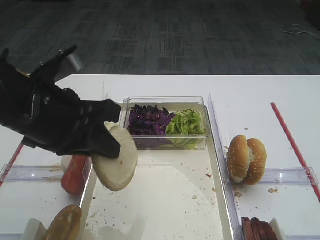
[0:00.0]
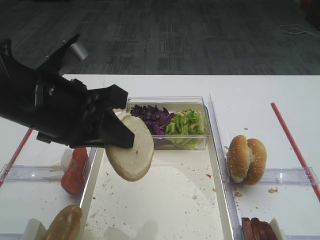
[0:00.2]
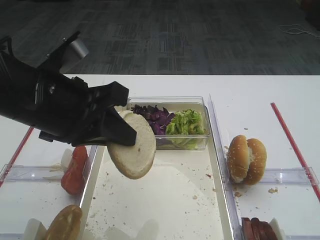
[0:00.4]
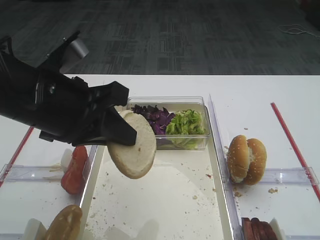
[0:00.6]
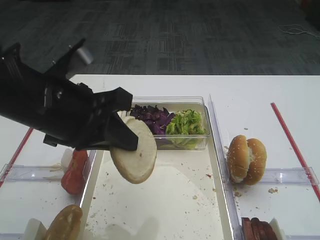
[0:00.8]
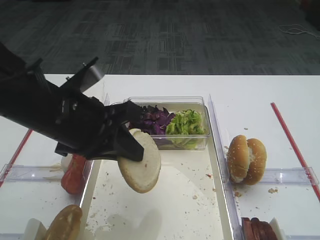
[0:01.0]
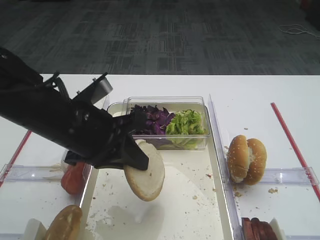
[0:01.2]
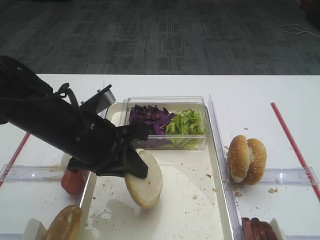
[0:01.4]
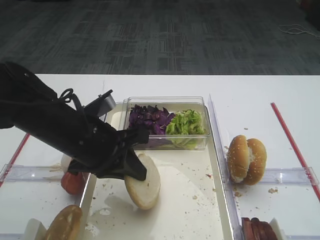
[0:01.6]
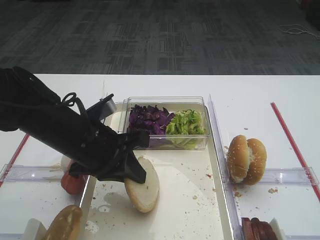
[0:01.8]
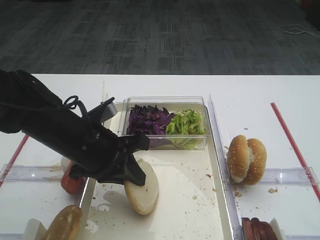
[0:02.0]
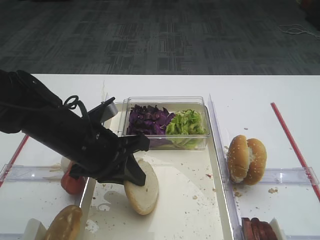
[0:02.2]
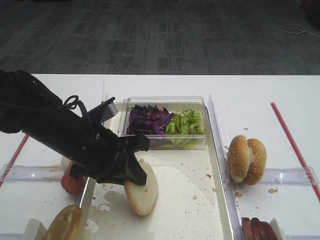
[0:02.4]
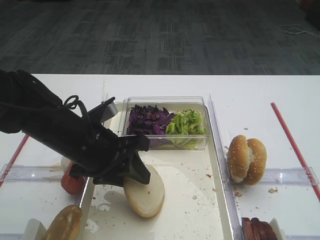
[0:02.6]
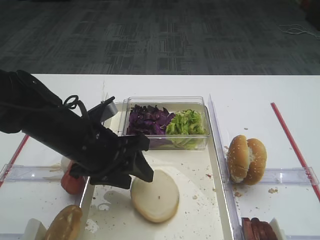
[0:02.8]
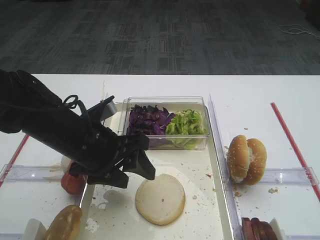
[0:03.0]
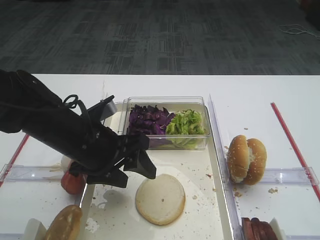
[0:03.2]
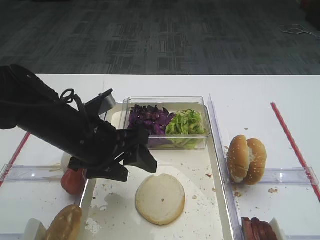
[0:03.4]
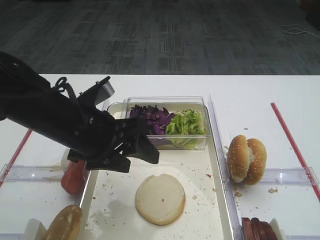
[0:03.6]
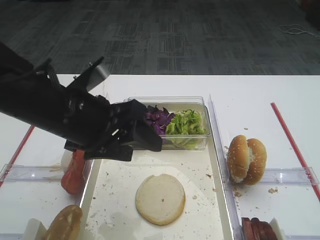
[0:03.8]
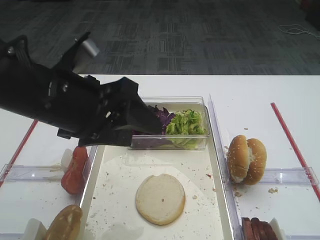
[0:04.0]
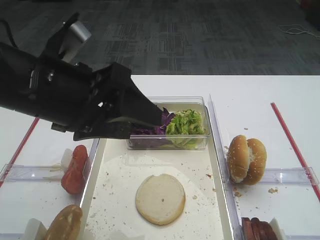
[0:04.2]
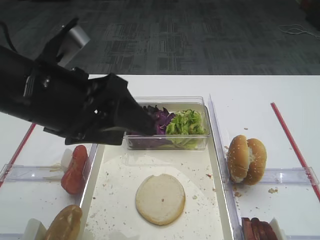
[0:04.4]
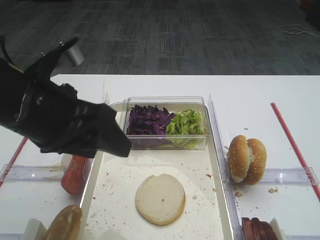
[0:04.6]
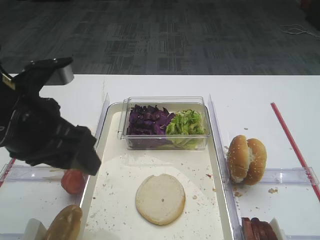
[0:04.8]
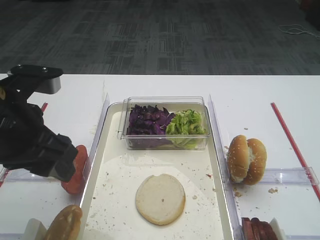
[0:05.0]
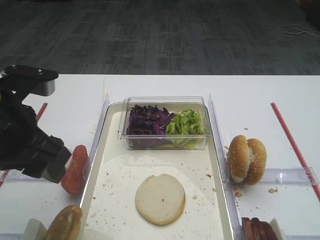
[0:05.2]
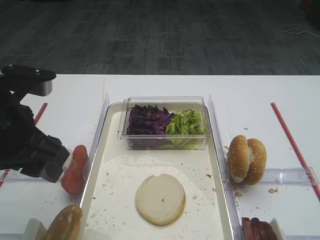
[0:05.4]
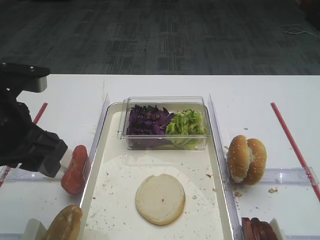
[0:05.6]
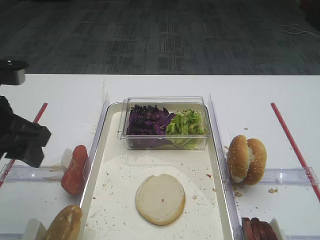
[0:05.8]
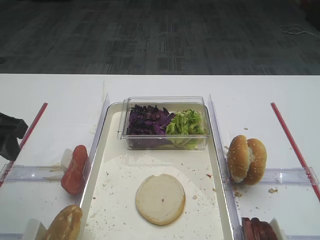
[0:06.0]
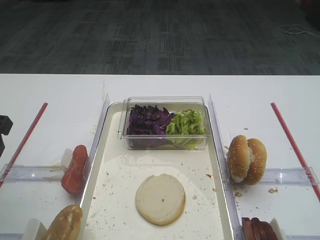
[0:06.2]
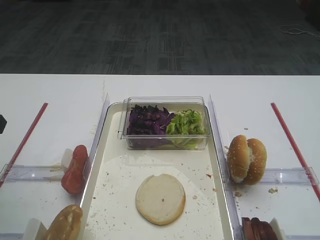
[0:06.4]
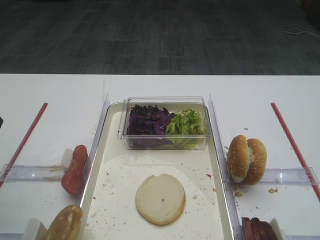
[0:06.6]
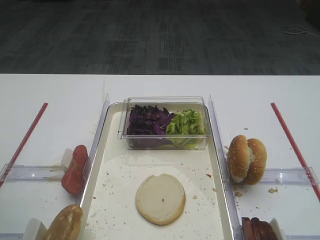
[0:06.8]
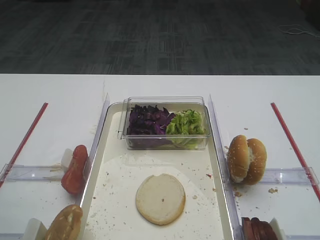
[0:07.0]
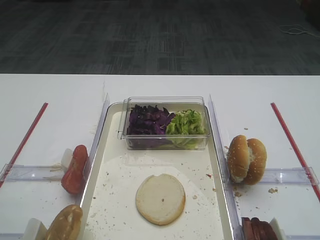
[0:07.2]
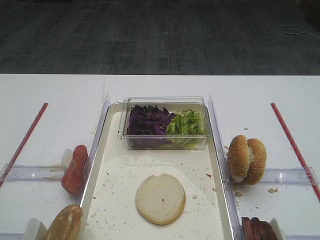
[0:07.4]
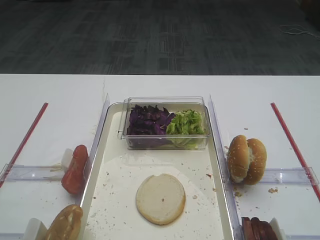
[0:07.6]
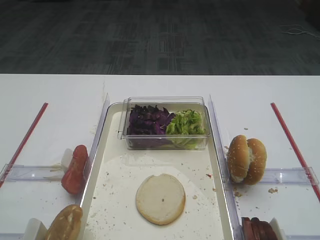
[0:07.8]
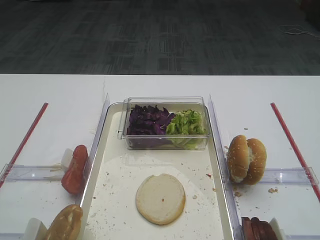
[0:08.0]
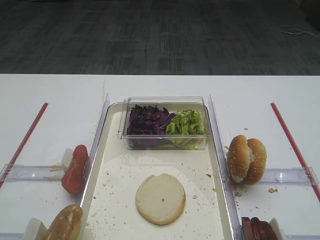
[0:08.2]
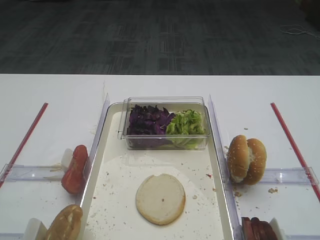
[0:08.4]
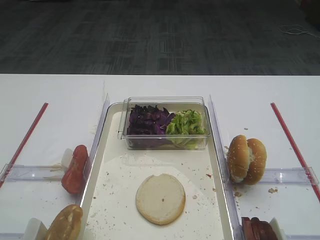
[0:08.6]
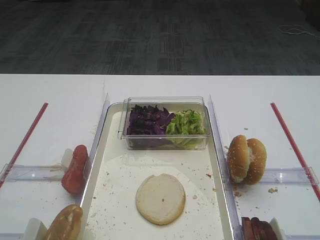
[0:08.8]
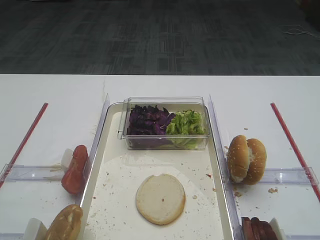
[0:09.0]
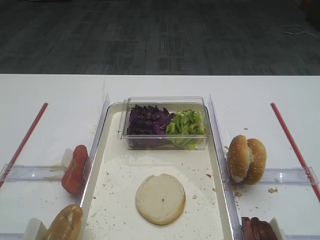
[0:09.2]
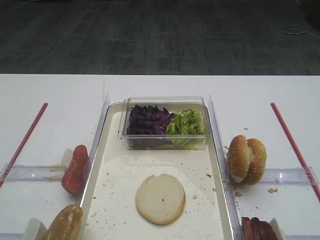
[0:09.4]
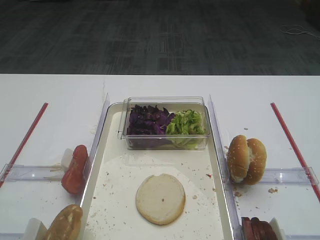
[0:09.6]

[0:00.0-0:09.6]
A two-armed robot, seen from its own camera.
Step, 0:00.0 to 0:06.2: Place the bread slice on the tray with the left gripper.
0:00.0 to 0:01.6: The left gripper travels downward by about 10 cm.
0:01.6 to 0:03.2: The left gripper opens.
0:03.2 to 0:04.8: The left gripper goes roughly 10 cm upward, to the left and backward.
0:04.8 to 0:06.4: The left gripper is displaced to the left by about 10 cm.
0:06.4 to 0:08.0: The left gripper goes approximately 20 cm backward.

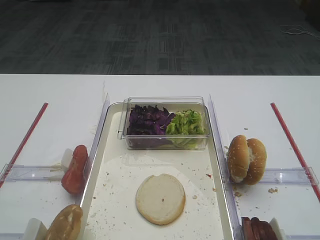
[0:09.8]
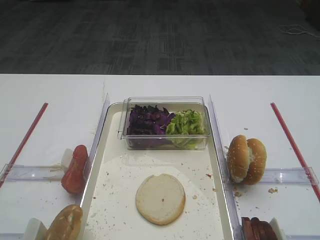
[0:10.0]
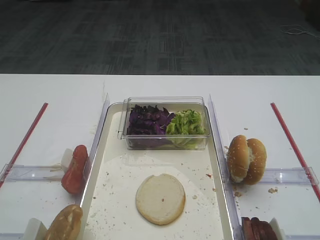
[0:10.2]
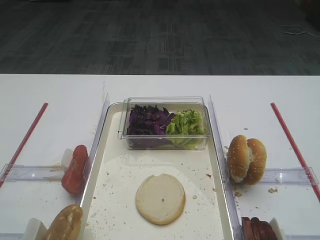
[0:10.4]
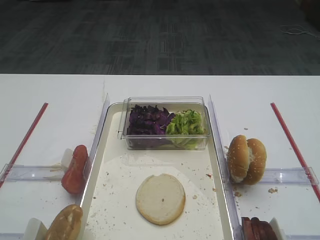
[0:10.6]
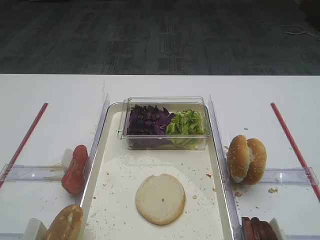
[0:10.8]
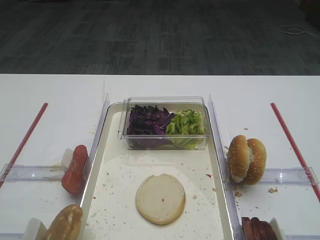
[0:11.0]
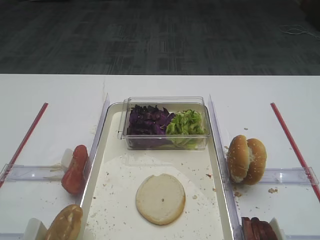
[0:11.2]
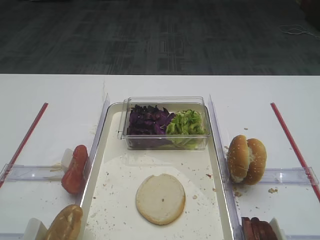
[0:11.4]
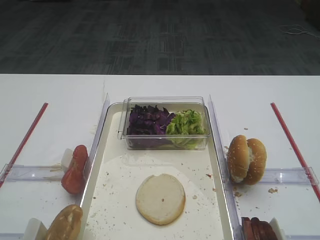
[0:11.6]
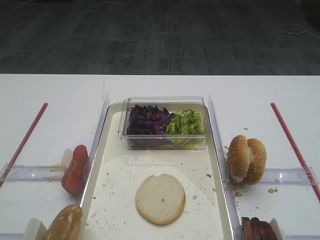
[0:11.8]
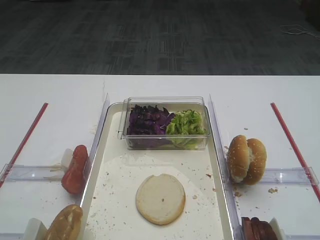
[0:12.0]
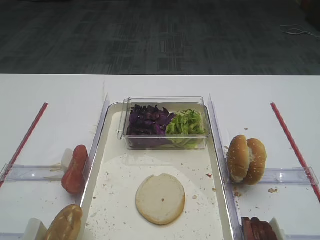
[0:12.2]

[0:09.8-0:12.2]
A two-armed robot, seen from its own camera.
0:09.8 to 0:12.2: The two grippers keep their place.

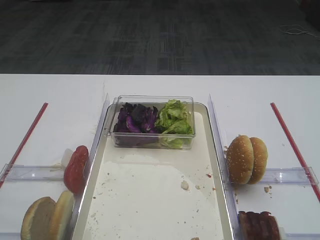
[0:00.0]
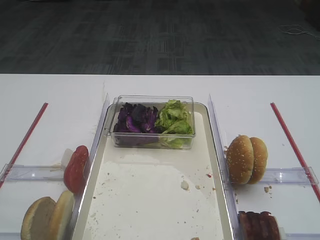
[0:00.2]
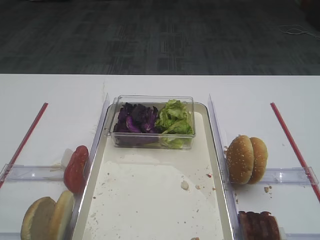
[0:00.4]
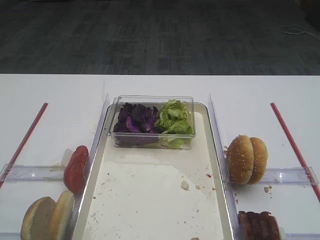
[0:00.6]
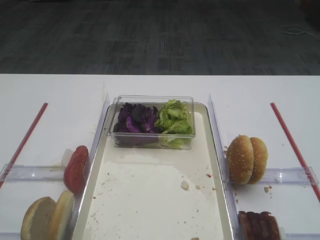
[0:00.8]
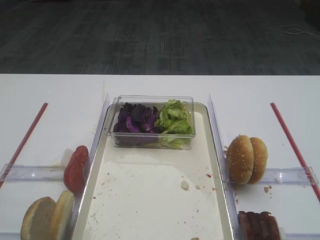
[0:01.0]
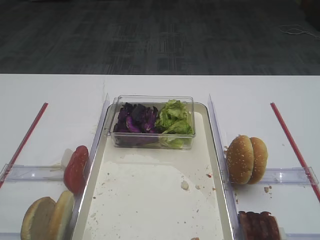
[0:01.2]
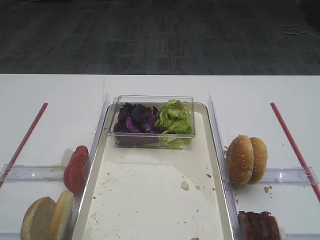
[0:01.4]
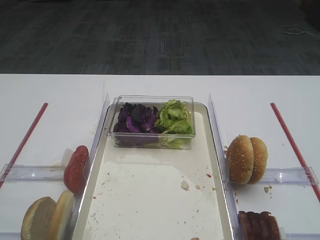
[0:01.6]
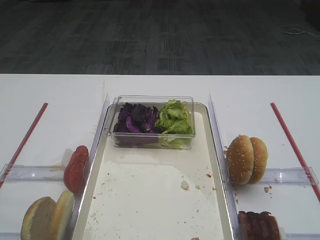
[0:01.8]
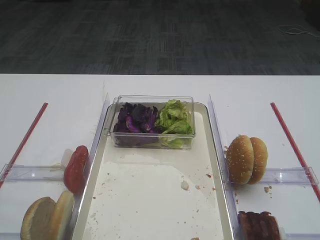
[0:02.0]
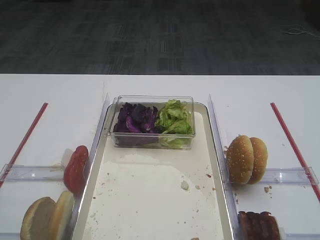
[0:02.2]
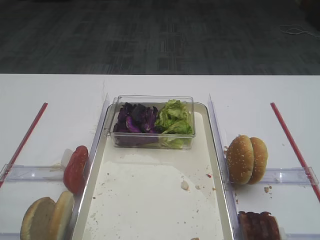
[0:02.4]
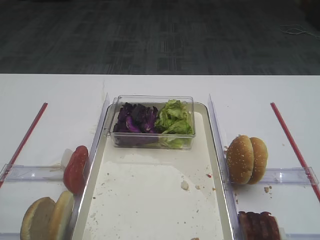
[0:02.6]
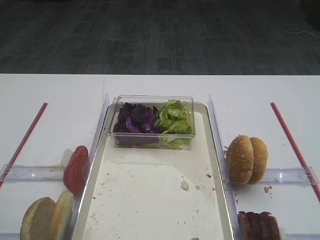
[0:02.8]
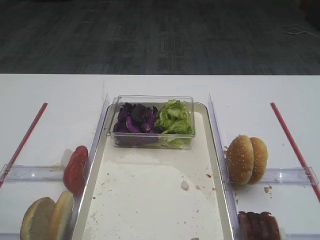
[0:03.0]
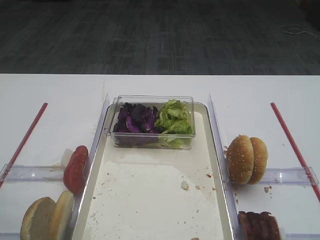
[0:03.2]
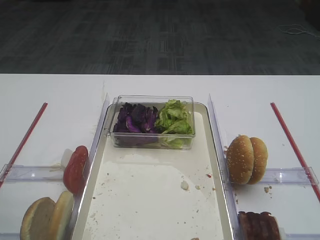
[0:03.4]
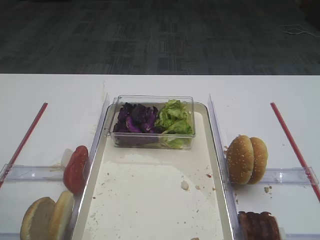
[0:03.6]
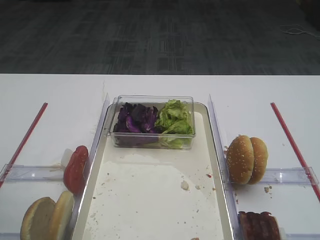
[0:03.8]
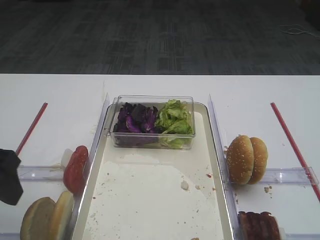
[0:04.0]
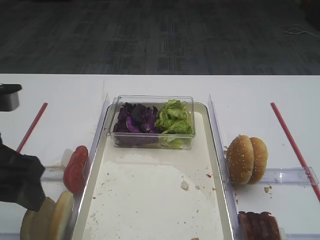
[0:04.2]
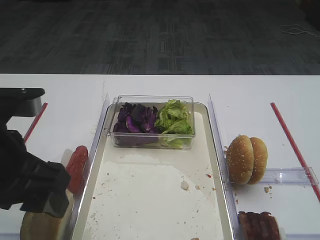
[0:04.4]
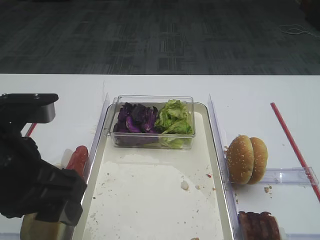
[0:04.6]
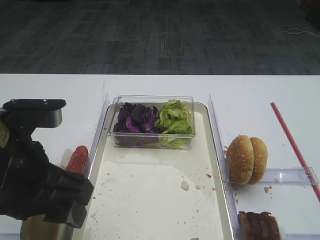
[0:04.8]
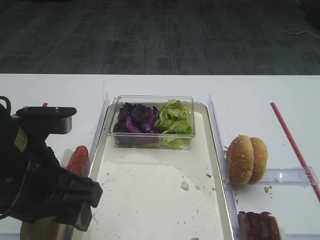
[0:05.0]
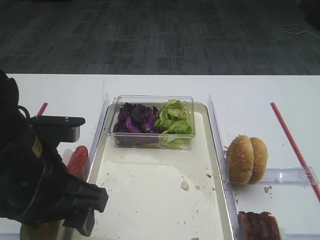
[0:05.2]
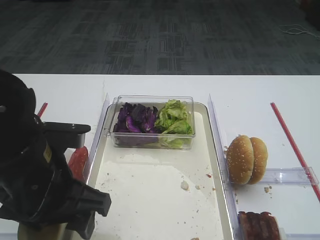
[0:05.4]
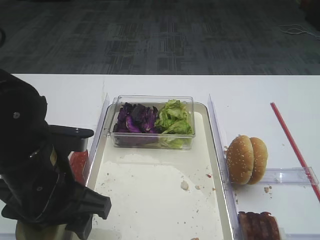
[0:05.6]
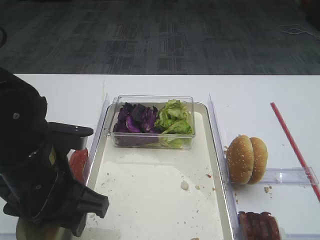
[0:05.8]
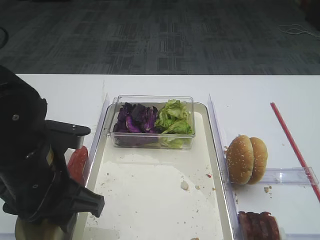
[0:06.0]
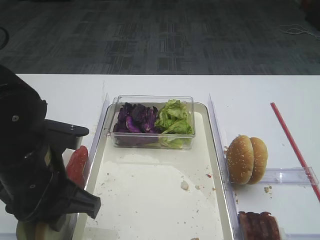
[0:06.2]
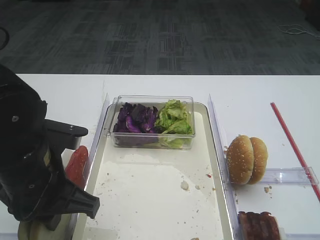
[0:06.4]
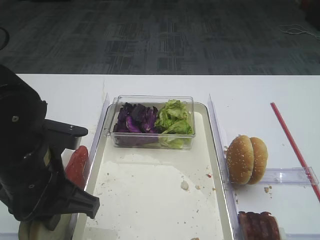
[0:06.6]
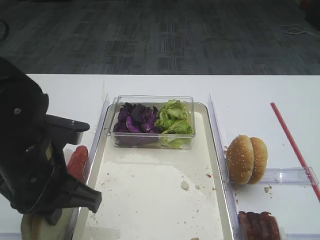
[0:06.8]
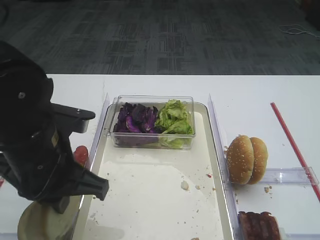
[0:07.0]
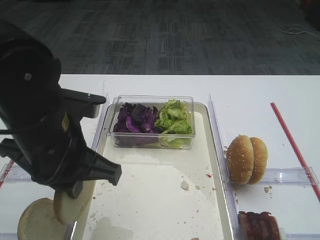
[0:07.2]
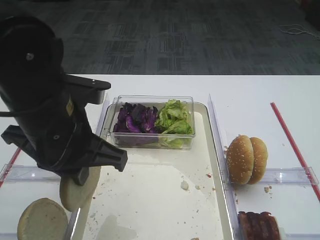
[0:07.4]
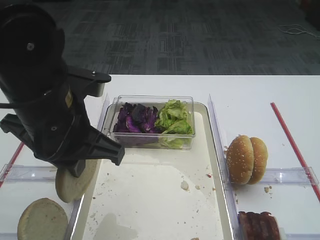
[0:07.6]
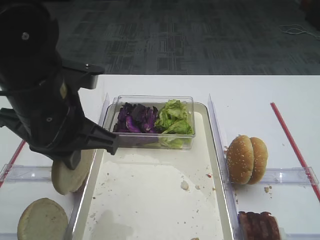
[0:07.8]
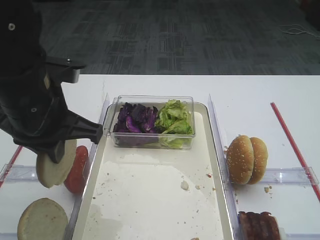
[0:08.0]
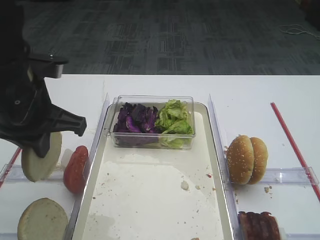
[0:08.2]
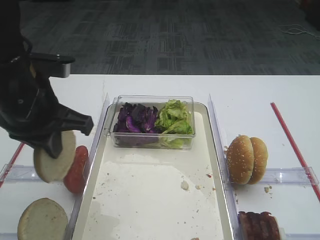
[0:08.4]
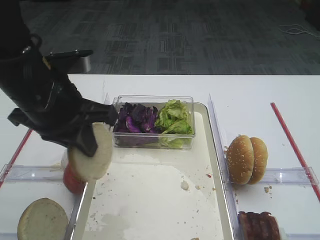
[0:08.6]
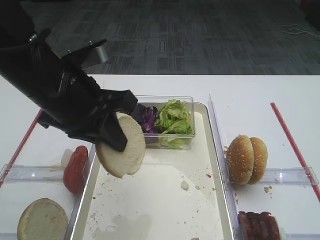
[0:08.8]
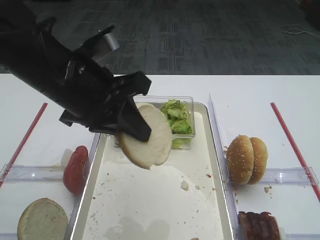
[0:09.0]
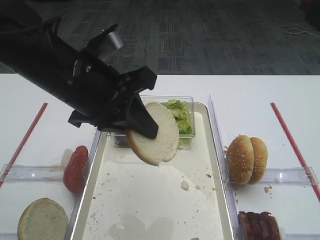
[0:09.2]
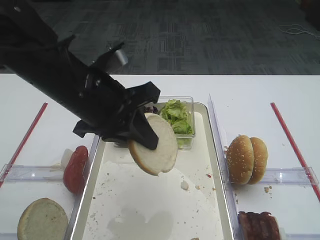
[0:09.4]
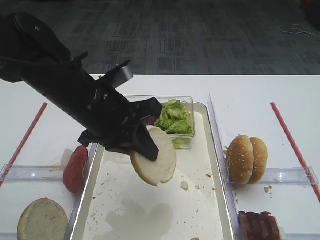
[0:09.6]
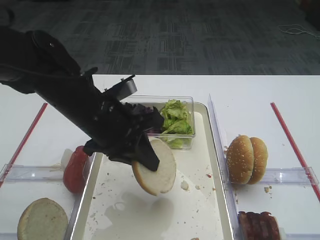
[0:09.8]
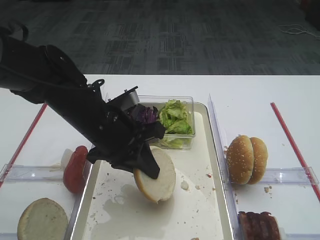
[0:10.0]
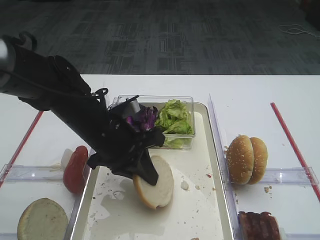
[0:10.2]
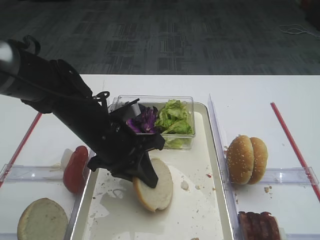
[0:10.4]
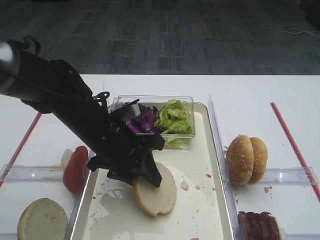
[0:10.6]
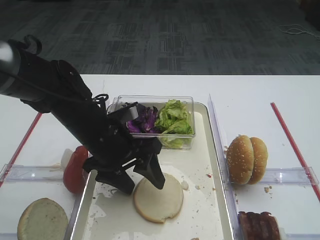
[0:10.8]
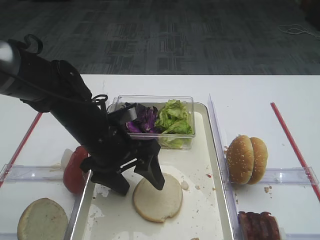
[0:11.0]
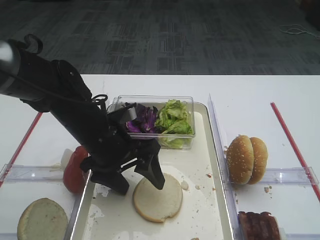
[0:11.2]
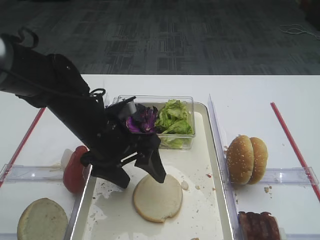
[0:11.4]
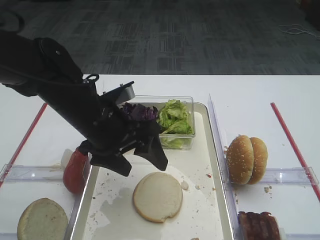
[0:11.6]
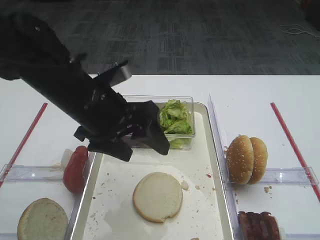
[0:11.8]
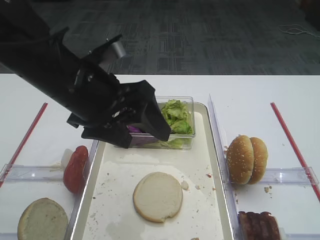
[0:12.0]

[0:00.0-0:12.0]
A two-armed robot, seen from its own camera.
Step, 0:00.0 to 0:07.0: Pick up the bread slice with the left gripper.
Step, 0:07.4 to 0:11.6: Place the bread slice on the tray with the left gripper.
0:03.0 to 0:04.4: The left gripper is displaced to the right by roughly 10 cm.
0:04.4 to 0:06.0: The left gripper moves downward, some 5 cm, and closes its fingers.
0:06.0 to 0:07.6: The left gripper goes some 5 cm upward, and closes.
0:09.0 to 0:10.4: The left gripper moves downward, roughly 15 cm.
0:10.4 to 0:12.0: The left gripper is displaced upward by about 10 cm, and opens its fingers.
